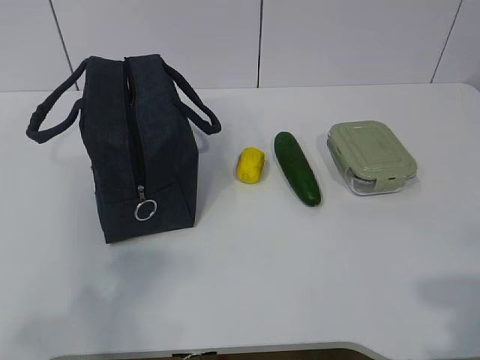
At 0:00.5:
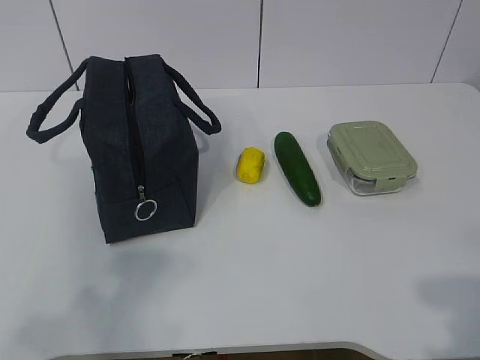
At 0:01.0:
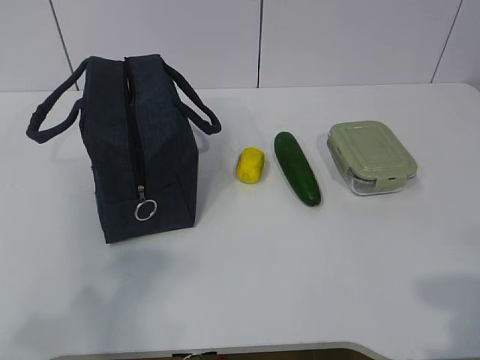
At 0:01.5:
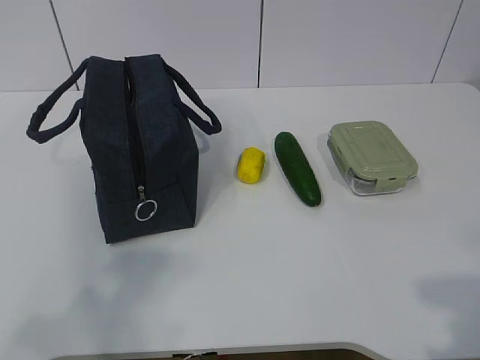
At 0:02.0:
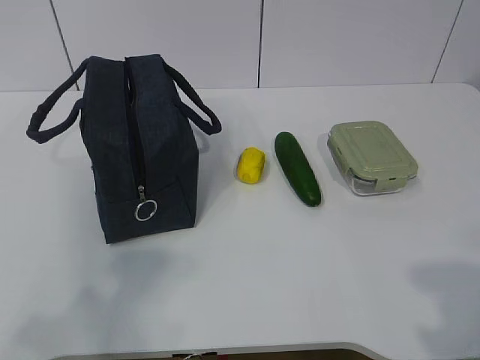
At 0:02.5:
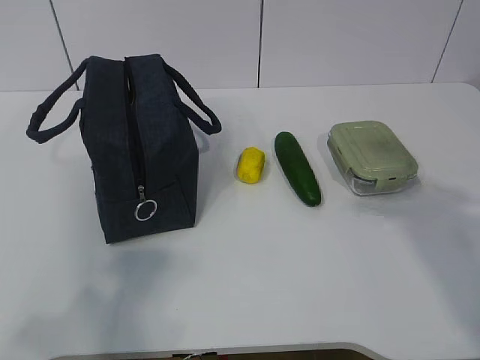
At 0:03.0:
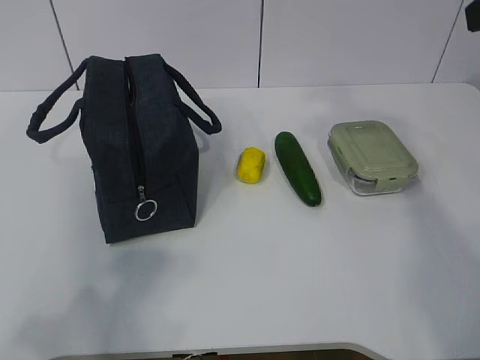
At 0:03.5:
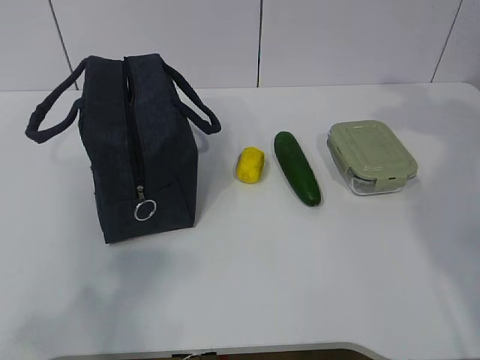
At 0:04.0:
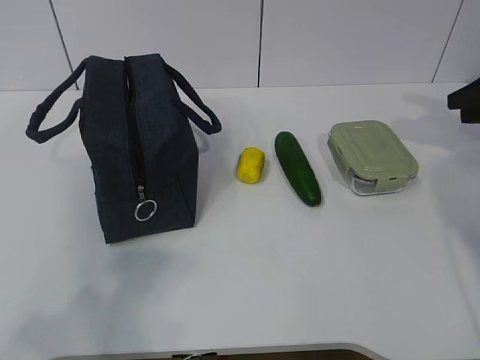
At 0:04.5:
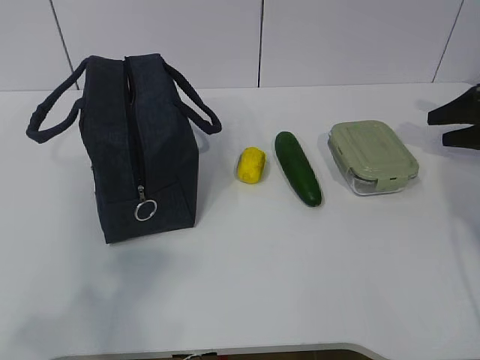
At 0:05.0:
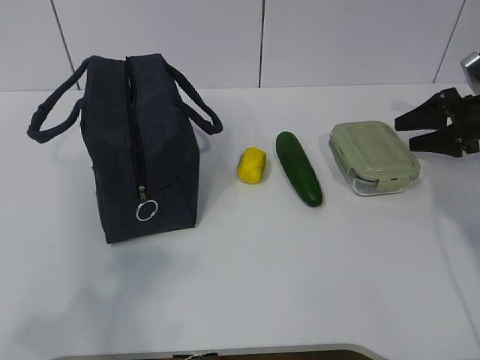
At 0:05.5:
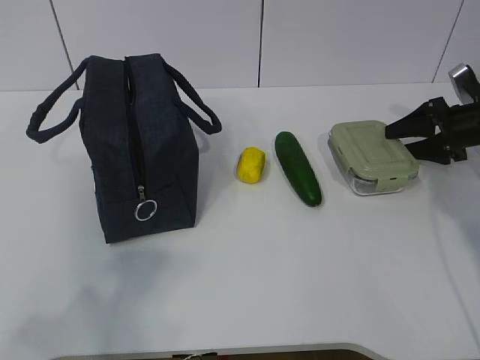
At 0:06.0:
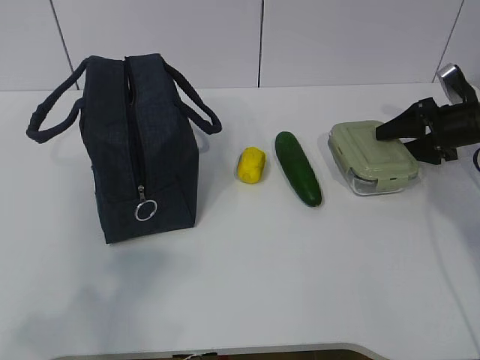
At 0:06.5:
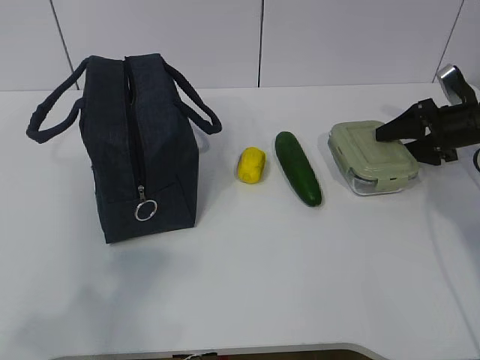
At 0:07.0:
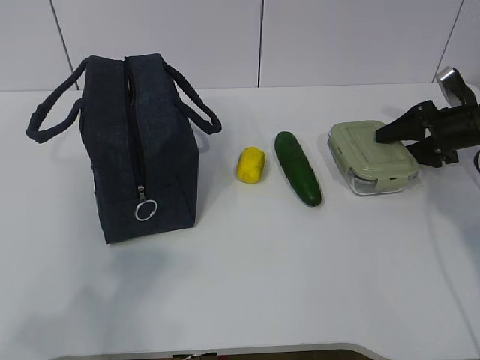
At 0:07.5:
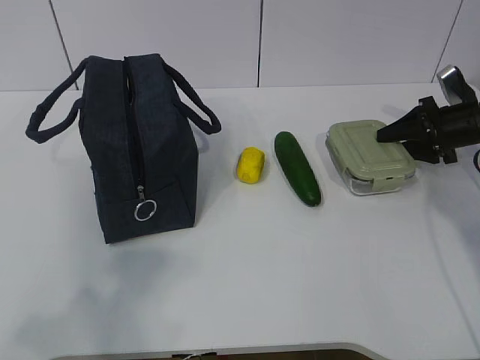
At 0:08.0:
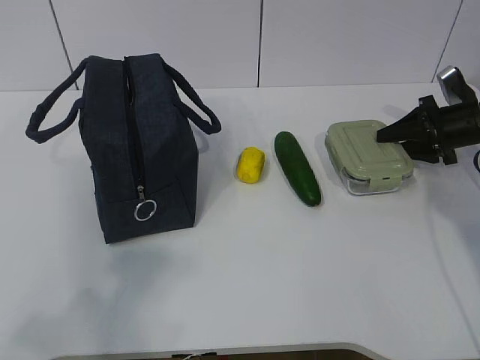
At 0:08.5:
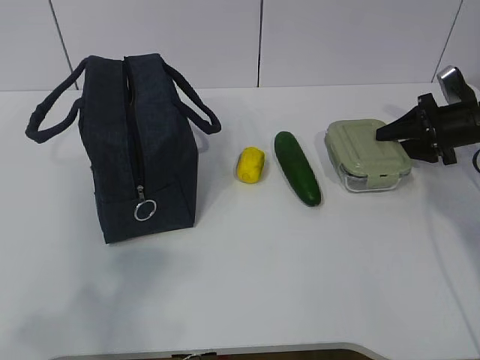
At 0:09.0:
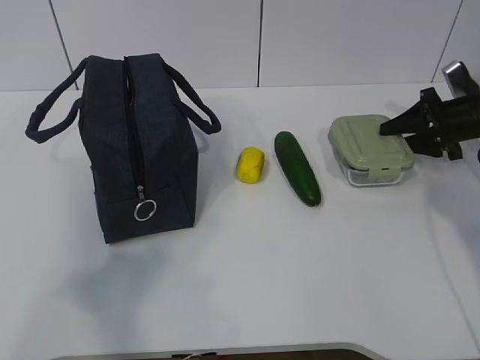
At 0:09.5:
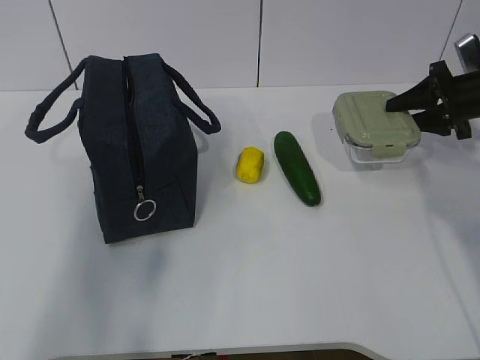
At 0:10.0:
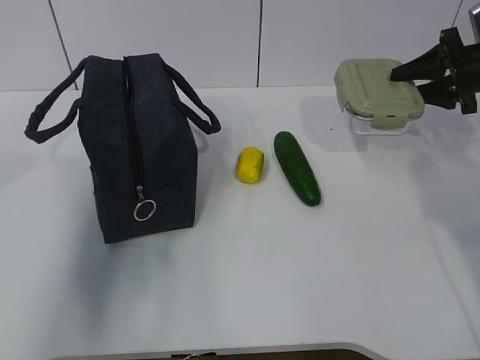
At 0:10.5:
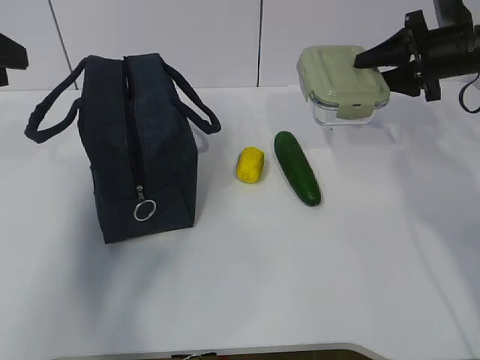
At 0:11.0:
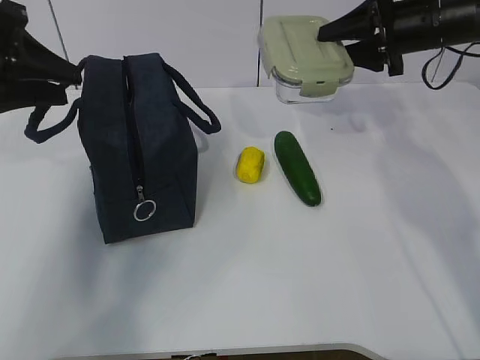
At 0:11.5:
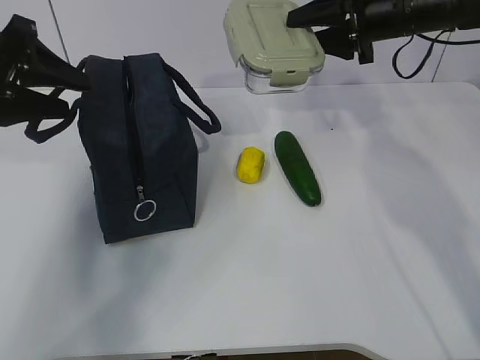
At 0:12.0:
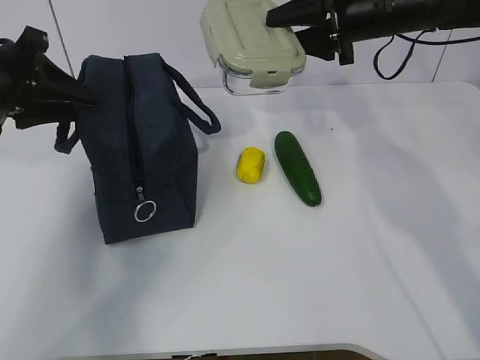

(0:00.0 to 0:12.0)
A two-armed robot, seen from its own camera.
Step, 0:00.0 - 0:07.0: Grab the lunch box with your right hand.
Step, 0:07.5 - 0:11.0: Grab the lunch bag with your left hand.
0:02.0 - 0:04.0: The right gripper travels forward by roughly 40 cm.
0:04.0 - 0:06.0: The right gripper travels downward, forward and to the left by about 10 cm.
0:06.0 - 0:08.0: Neither gripper changes place.
0:08.0 - 0:10.0: The left gripper is displaced forward by roughly 20 cm; the right gripper goes some 10 cm upward.
0:10.0 - 0:12.0: The left gripper shifts some 20 cm forward and downward; the right gripper heads to the left, covering about 15 cm.

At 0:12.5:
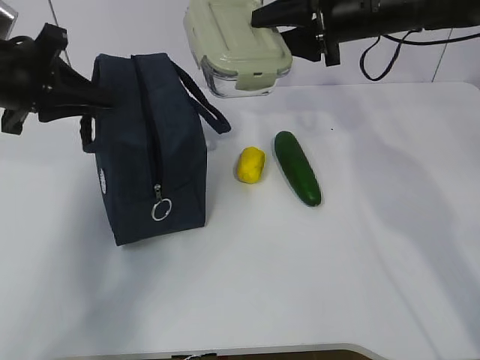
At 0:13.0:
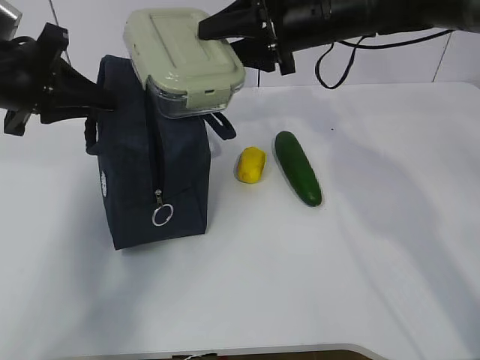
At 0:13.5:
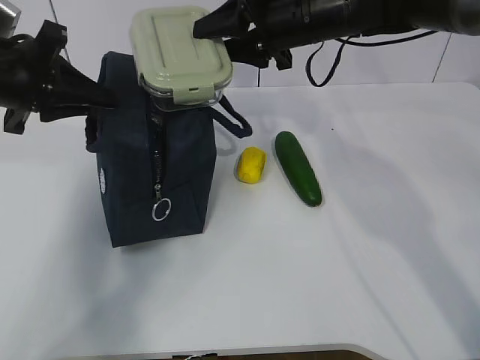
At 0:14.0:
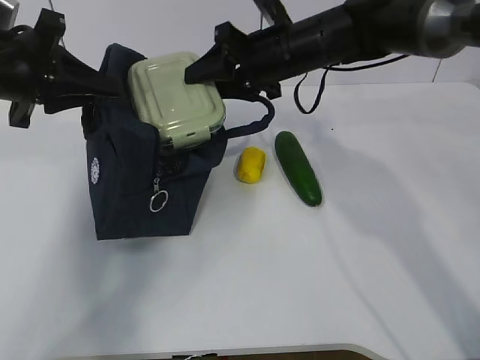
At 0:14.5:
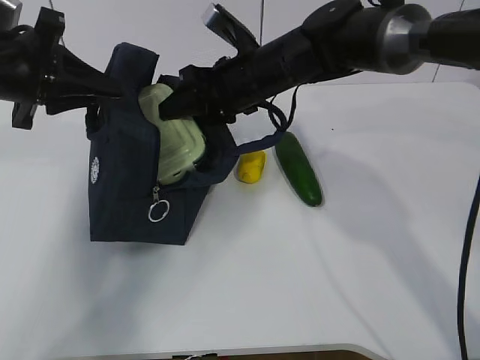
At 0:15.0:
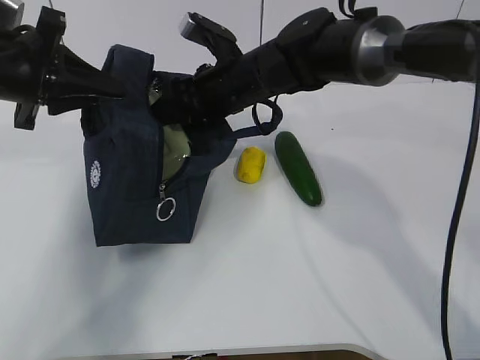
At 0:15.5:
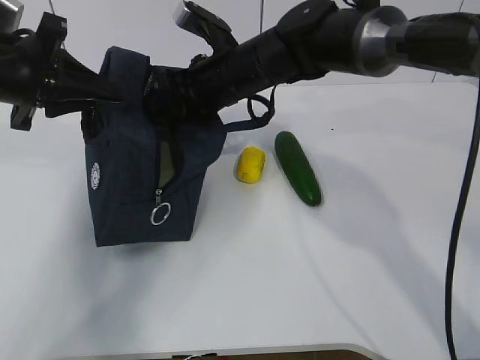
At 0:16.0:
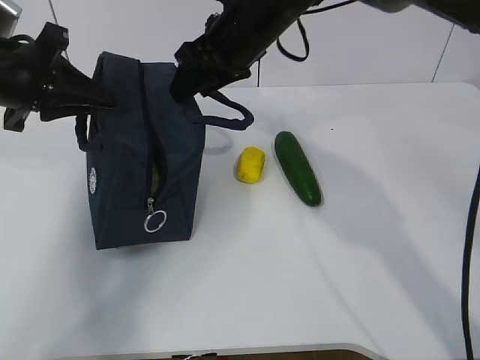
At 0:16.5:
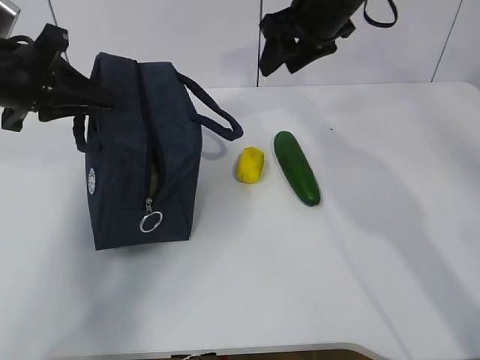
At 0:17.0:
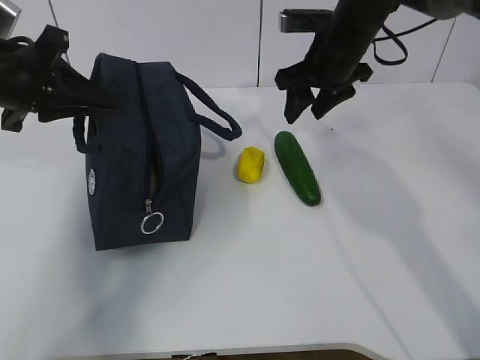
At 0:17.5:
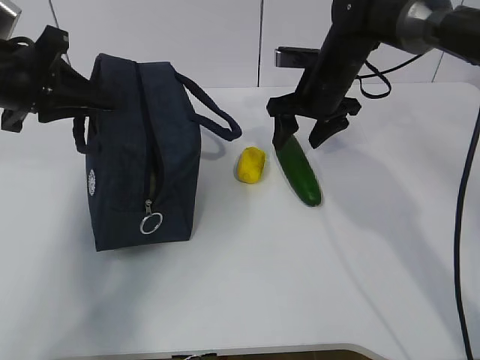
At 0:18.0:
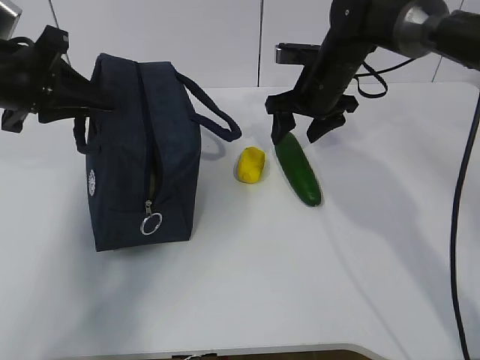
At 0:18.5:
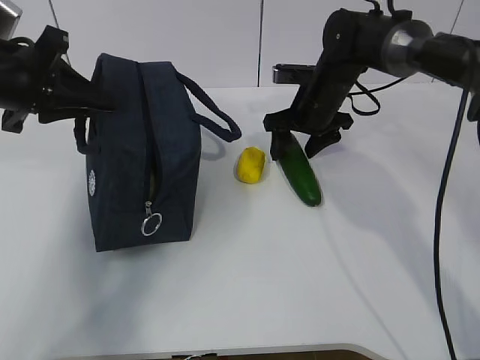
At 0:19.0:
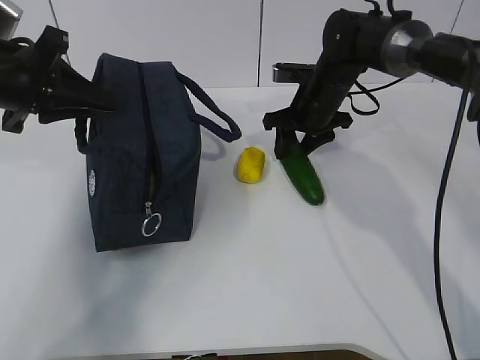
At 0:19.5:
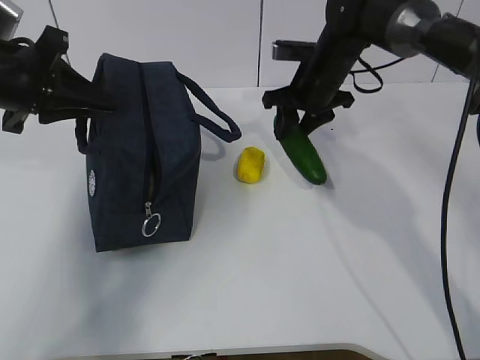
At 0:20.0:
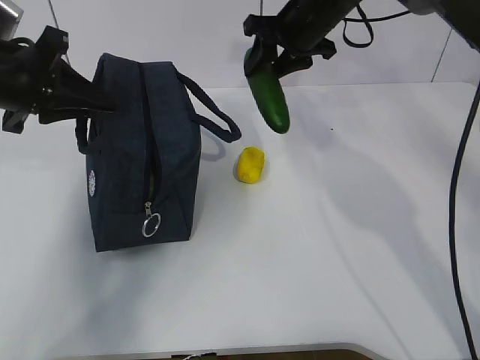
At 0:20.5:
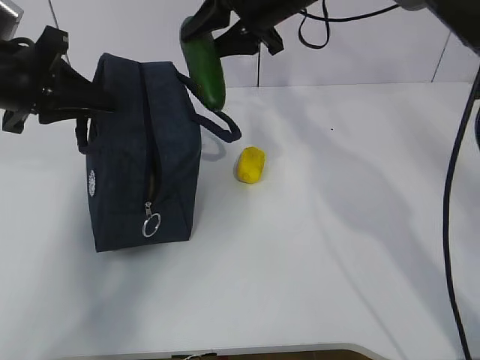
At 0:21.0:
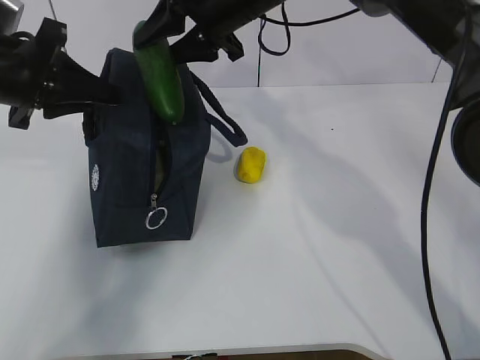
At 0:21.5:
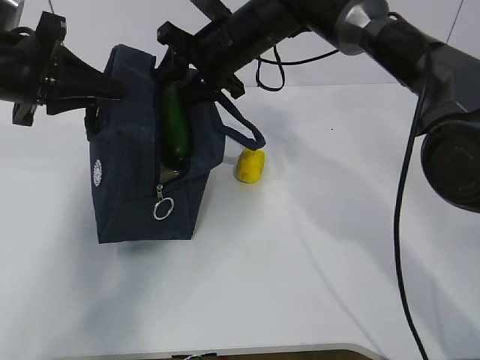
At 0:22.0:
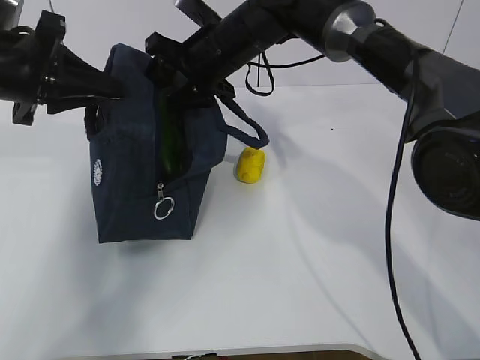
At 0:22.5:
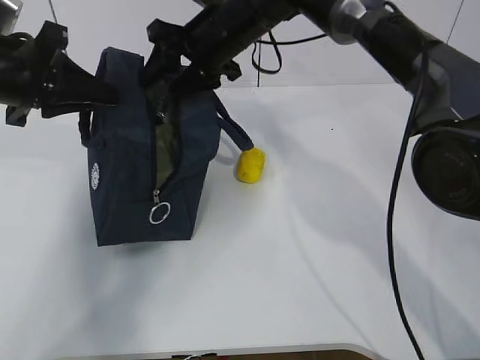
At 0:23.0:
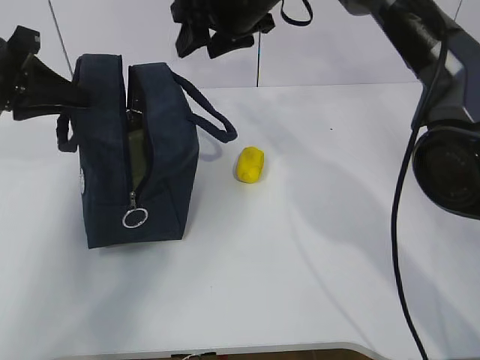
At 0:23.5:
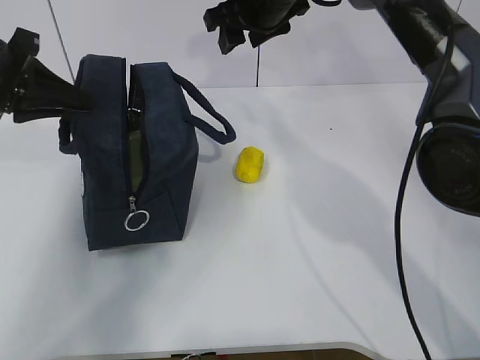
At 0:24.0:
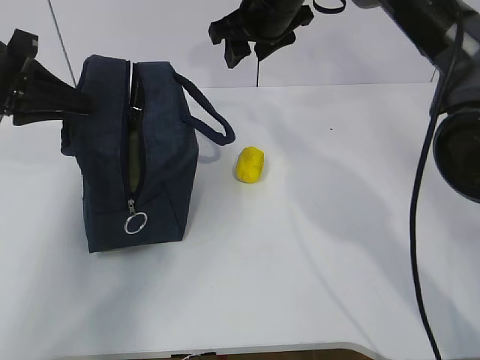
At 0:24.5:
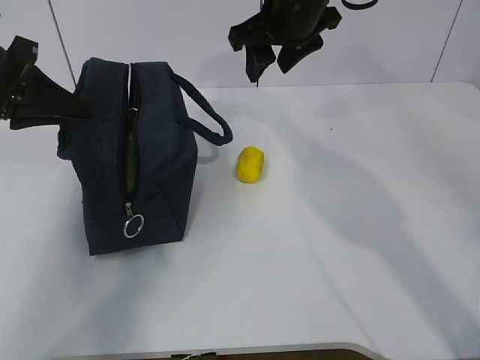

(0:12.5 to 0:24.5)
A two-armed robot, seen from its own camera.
Step, 0:13.5 - 0:16.0: Grab the cucumber with your right hand.
Step, 0:16.5 - 0:18.0: Place it into the bag with your right hand.
Step, 0:18.5 - 0:23.5: Grab the pear with your right hand.
0:12.5 - 0:14.5: The right gripper is displaced to the left and downward by about 15 cm.
0:14.5 - 0:16.5: The right gripper shifts roughly 10 cm to the right and upward.
0:16.5 - 0:18.5: The right gripper moves downward, about 15 cm.
0:18.5 - 0:20.5: The right gripper shifts some 15 cm upward and to the left, and closes.
0:20.5 - 0:22.5: The right gripper goes about 5 cm to the left.
0:22.5 - 0:24.5: The right gripper goes roughly 5 cm to the right.

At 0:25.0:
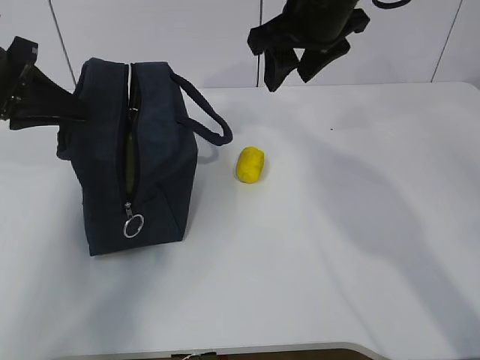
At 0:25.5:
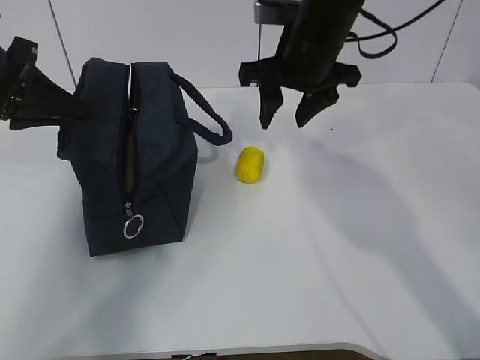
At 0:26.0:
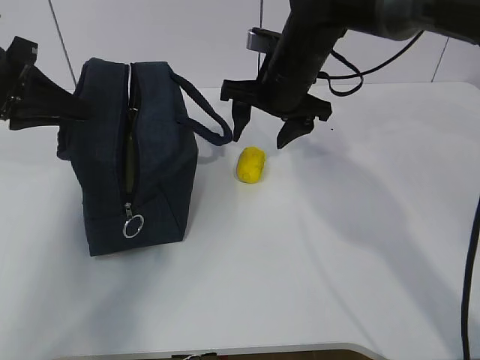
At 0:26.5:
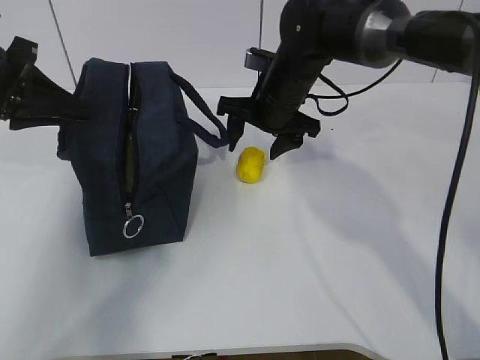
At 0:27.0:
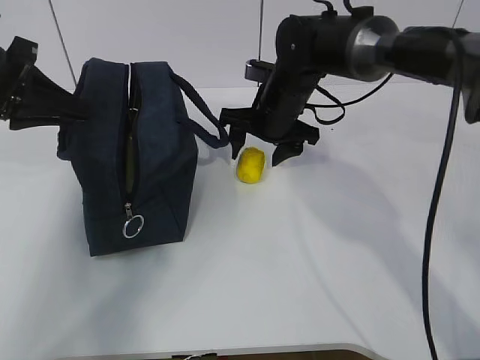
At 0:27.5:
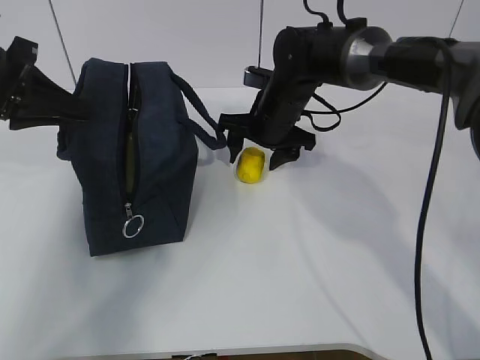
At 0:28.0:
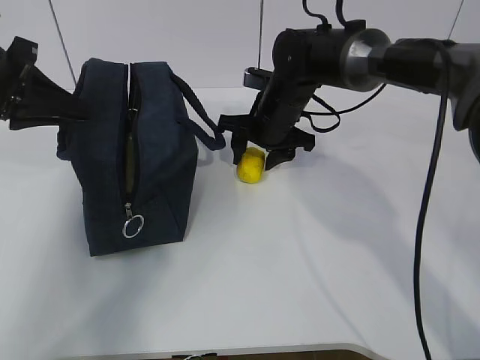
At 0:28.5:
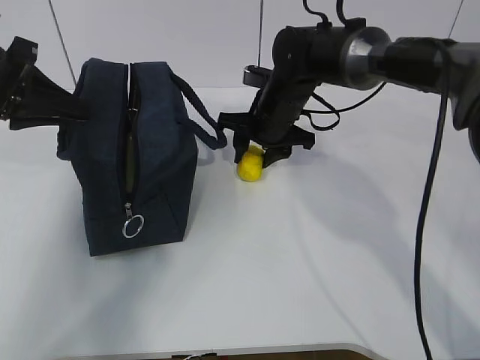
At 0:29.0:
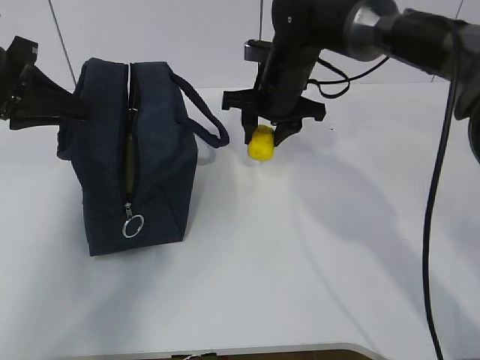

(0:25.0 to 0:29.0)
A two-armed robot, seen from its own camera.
Step, 0:26.5 - 0:28.5: Grab the lunch bag with your right hand.
0:25.0 - 0:27.0: The right gripper goes roughly 15 cm downward.
0:27.0 - 0:29.0: The right gripper closes.
